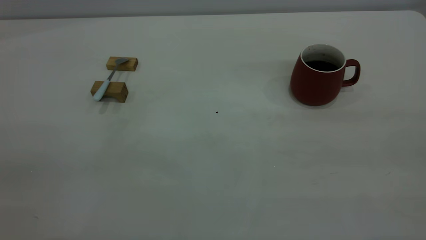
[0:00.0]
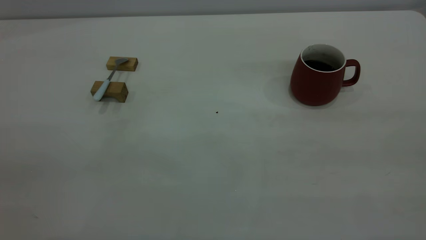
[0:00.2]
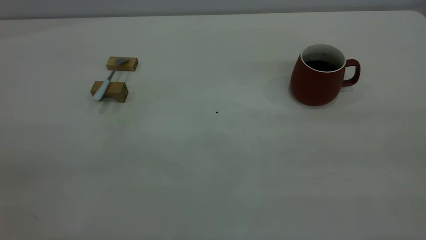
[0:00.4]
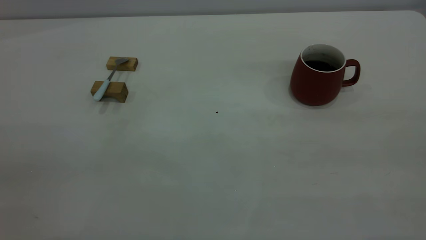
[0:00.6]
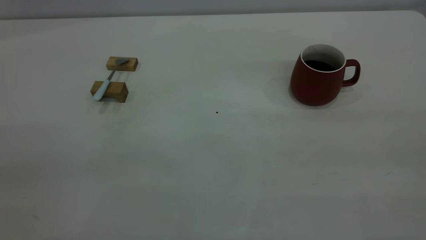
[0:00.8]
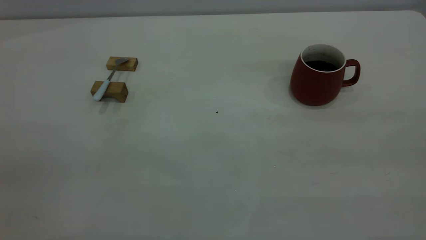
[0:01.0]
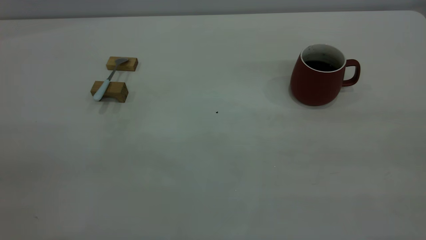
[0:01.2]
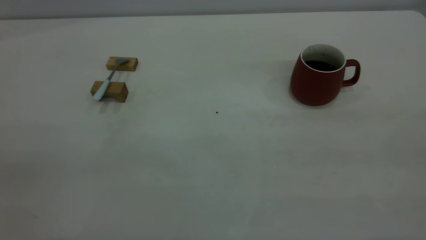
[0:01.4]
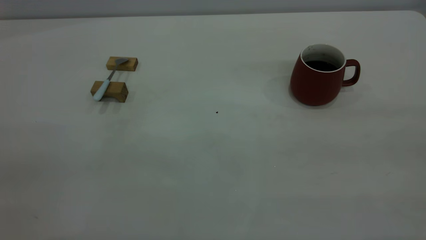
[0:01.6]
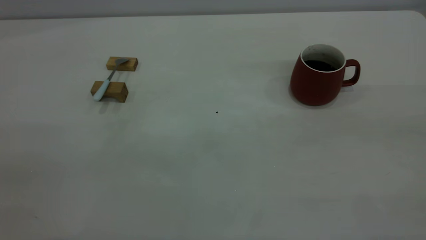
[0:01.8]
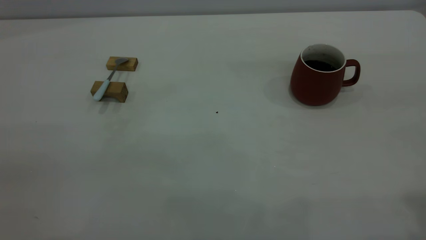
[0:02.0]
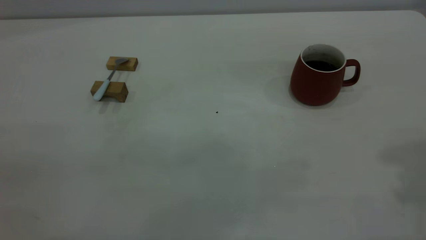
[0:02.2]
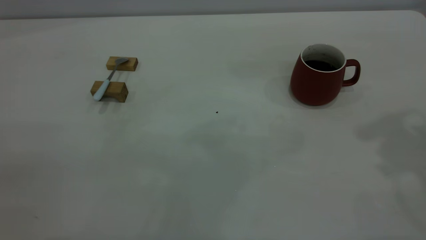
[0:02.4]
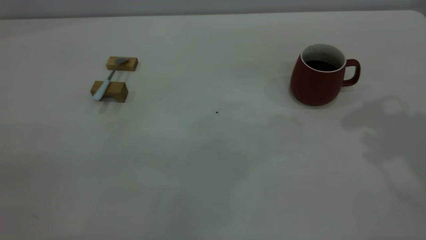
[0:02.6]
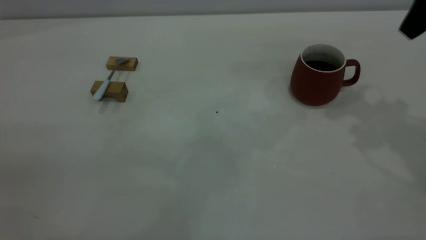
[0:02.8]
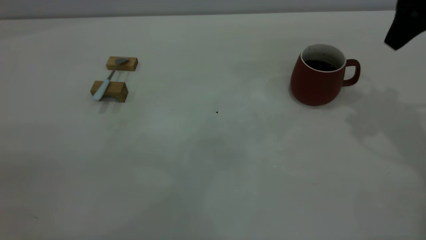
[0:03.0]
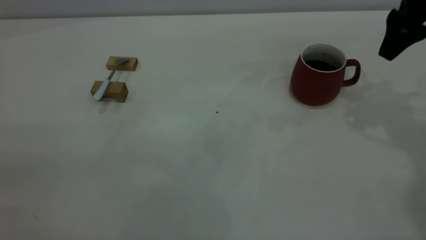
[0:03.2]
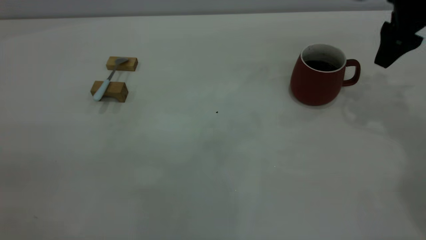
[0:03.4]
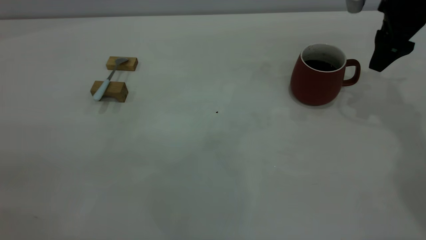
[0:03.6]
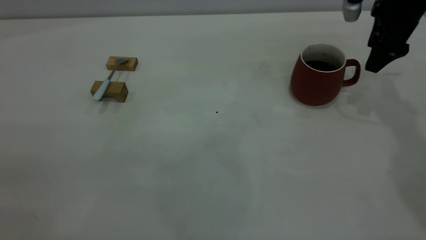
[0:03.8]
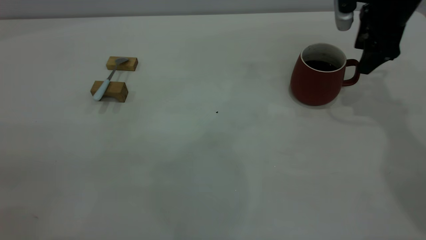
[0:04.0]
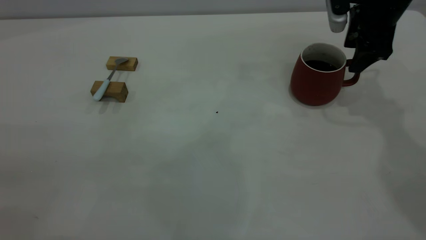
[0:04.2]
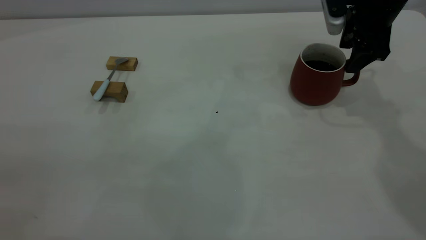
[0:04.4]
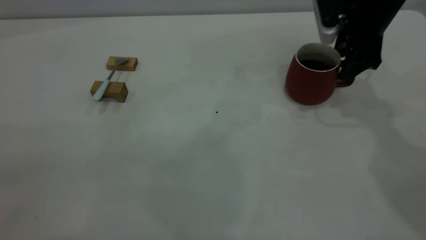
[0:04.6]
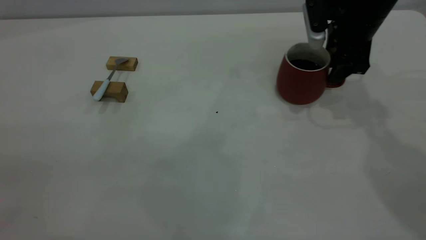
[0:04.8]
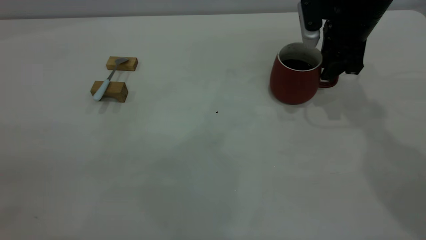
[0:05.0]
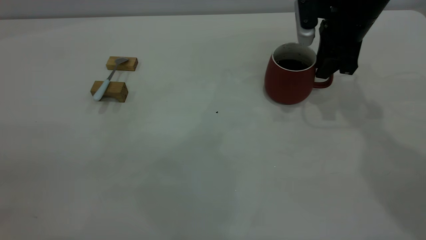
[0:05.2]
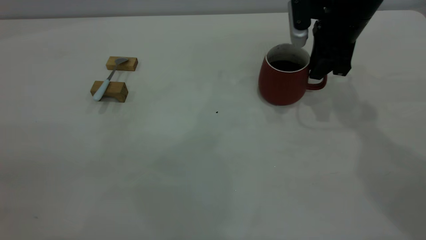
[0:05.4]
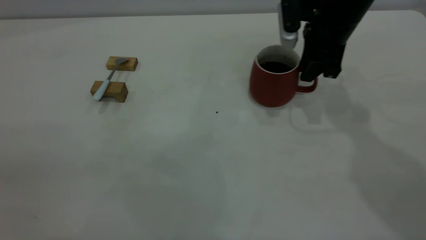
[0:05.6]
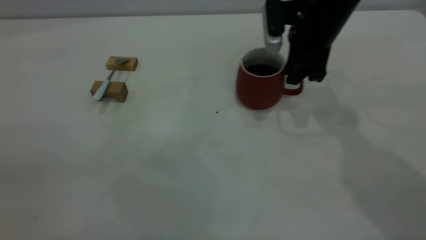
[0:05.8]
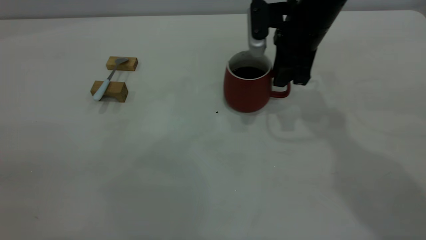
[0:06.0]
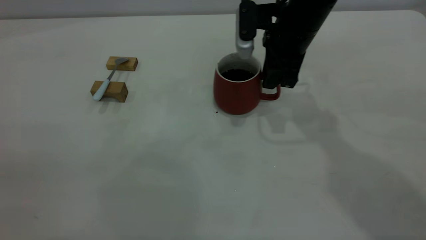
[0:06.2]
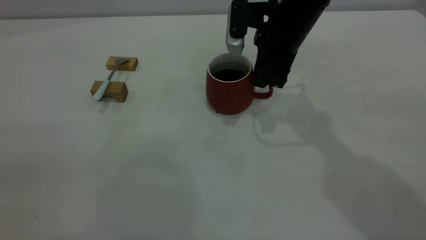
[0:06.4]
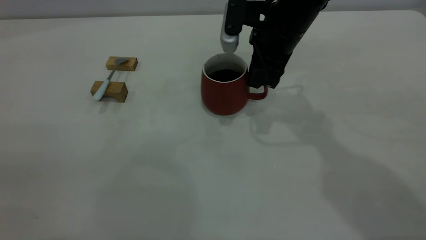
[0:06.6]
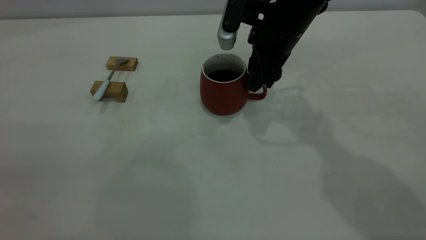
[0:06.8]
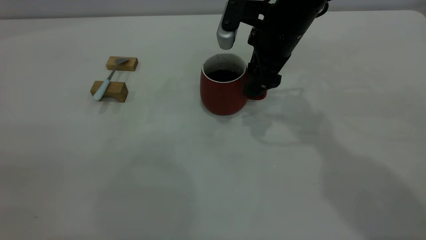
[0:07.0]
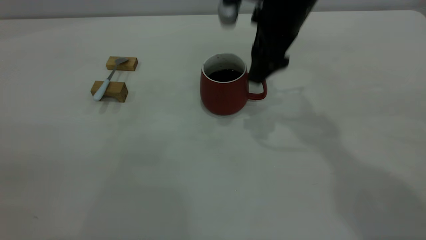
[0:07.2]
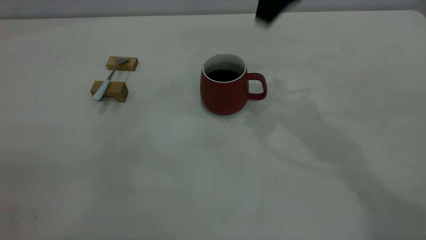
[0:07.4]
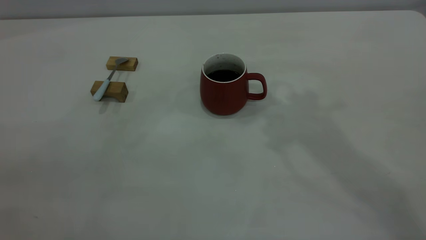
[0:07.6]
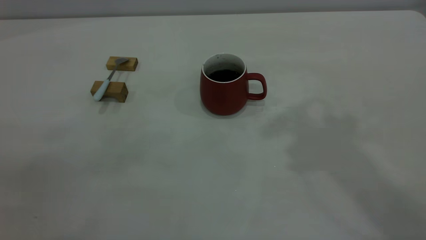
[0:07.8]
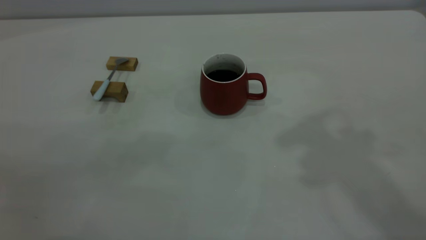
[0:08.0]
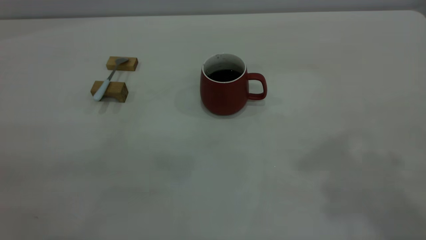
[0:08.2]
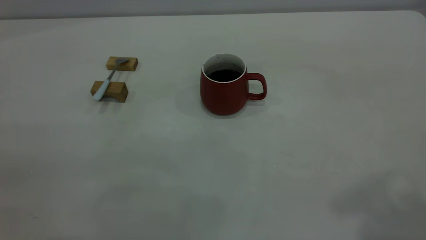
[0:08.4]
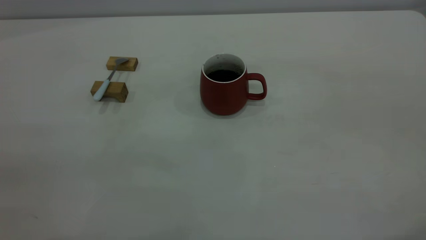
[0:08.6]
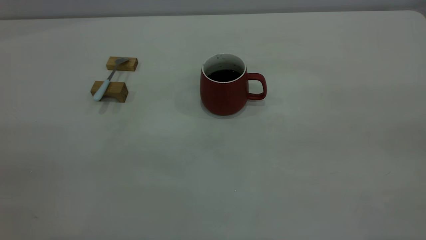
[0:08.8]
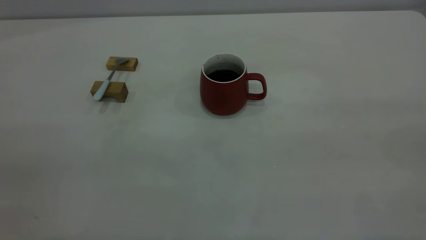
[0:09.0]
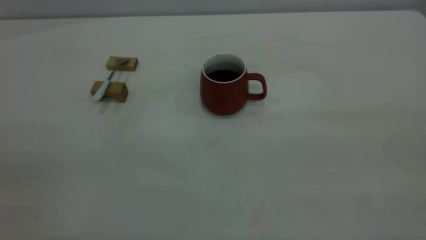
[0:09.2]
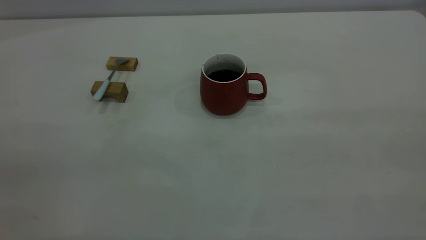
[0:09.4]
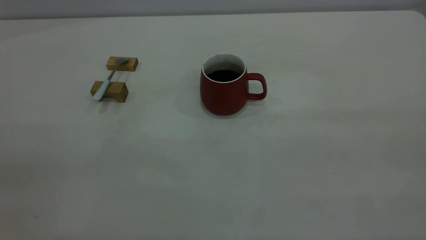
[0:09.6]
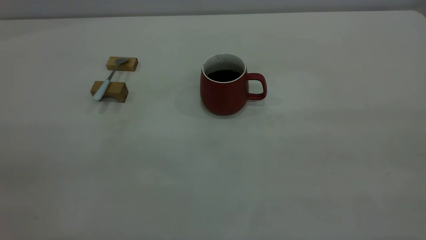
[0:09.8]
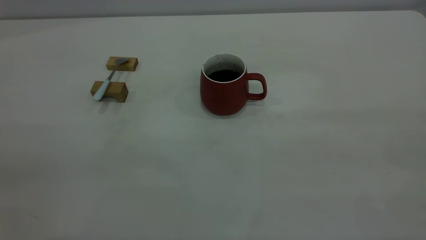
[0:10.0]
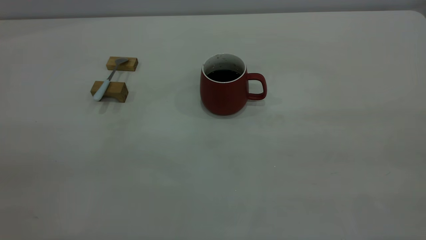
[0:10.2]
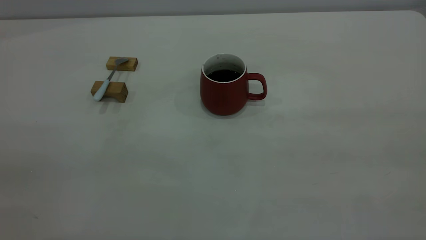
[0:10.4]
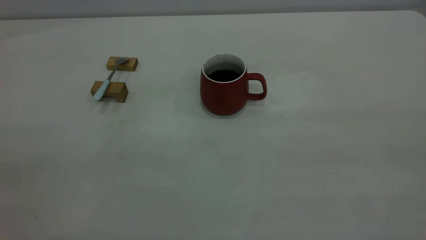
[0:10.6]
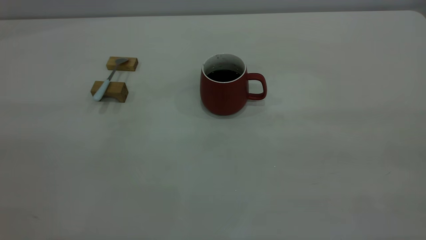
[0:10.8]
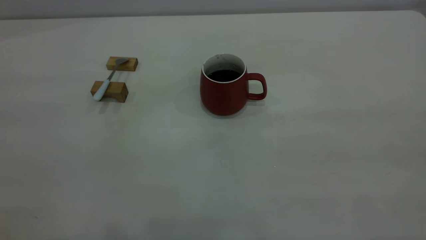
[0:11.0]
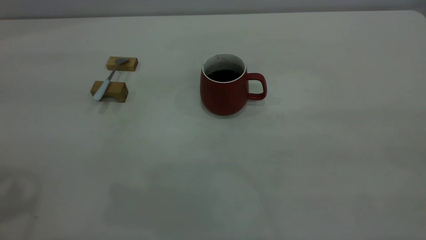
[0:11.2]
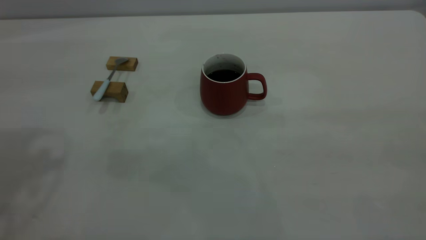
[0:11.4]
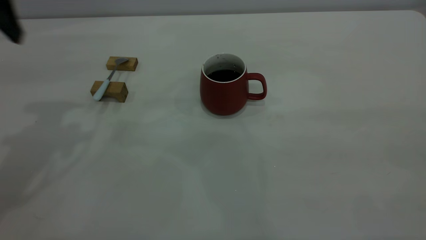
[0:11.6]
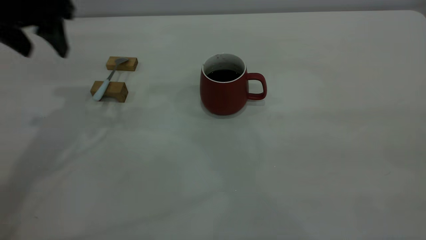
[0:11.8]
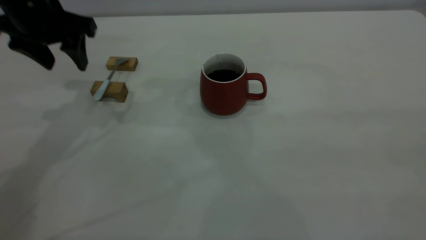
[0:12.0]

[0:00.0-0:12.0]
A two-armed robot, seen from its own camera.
Step, 0:00.0 to 0:07.2: Move the cup with coffee to the center of view.
0:01.6 to 0:03.0: The right gripper heads forward, covering roughly 35 cm.
0:03.0 to 0:04.4: The right gripper heads downward and forward, covering some 10 cm.
0:04.4 to 0:06.0: The right gripper moves to the left, some 10 cm, and closes up.
0:06.0 to 0:07.6: The right gripper goes about 25 cm upward, and opens its fingers.
0:10.4 to 0:12.0: The left gripper travels forward and downward by roughly 40 cm.

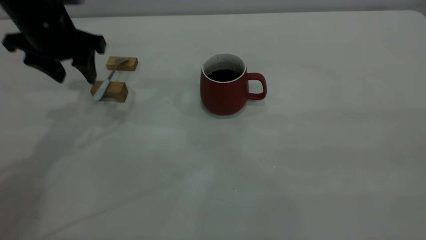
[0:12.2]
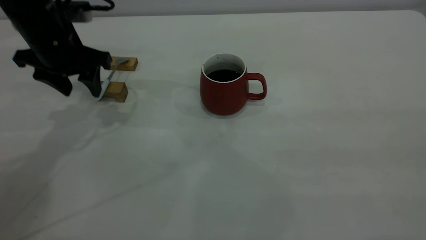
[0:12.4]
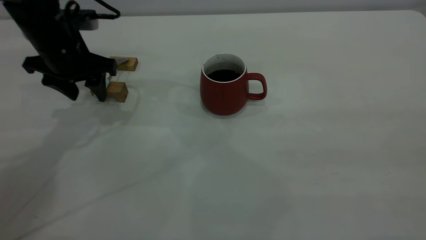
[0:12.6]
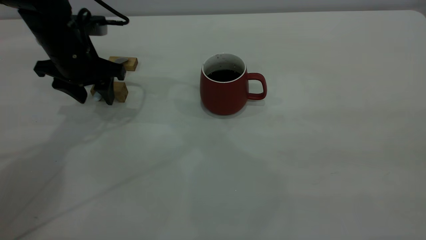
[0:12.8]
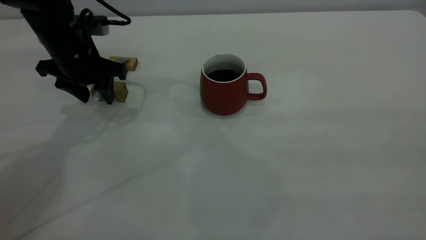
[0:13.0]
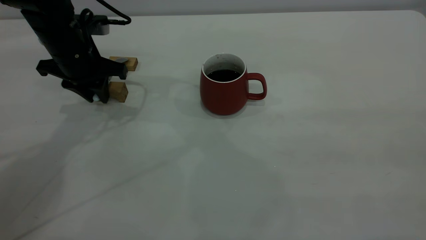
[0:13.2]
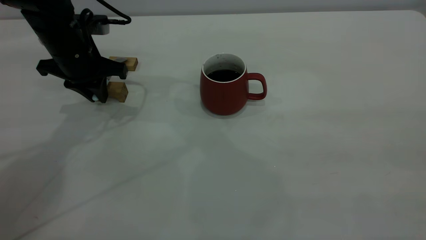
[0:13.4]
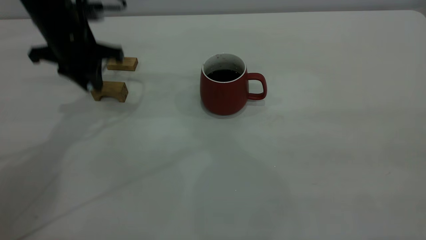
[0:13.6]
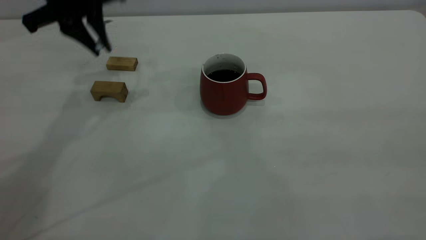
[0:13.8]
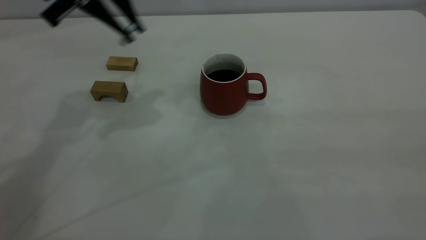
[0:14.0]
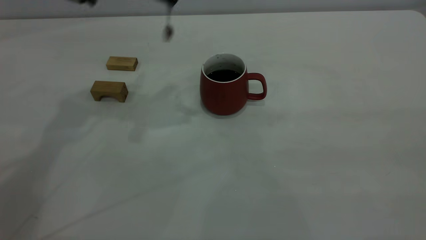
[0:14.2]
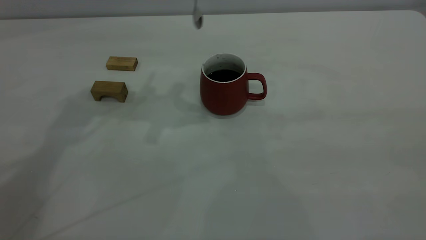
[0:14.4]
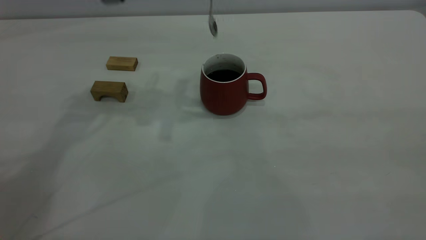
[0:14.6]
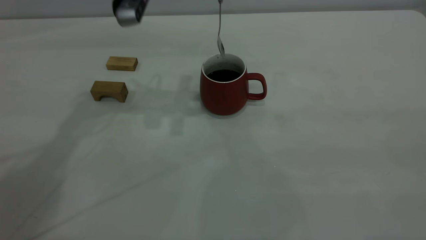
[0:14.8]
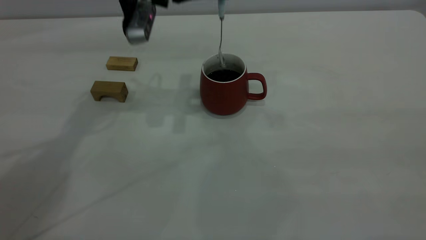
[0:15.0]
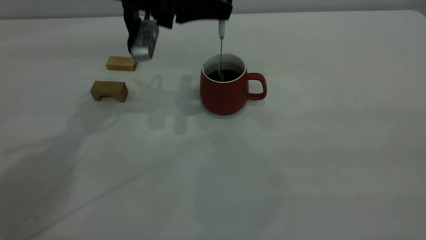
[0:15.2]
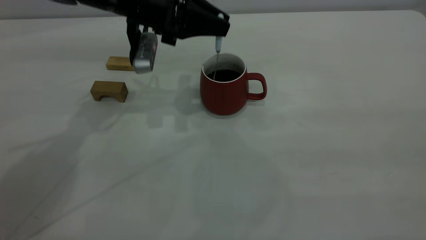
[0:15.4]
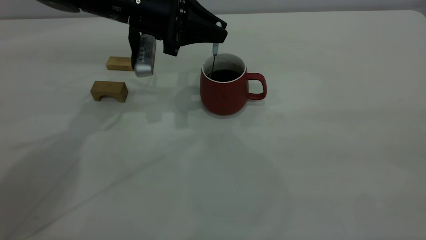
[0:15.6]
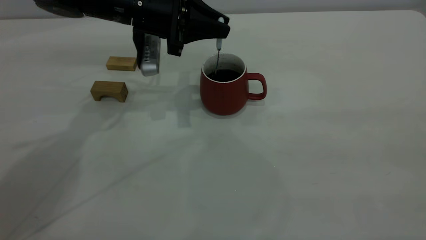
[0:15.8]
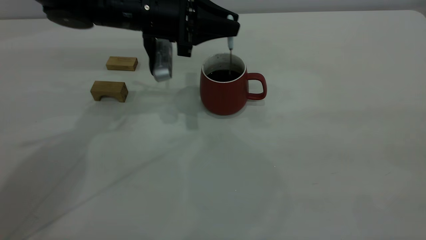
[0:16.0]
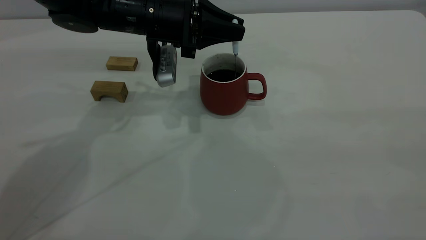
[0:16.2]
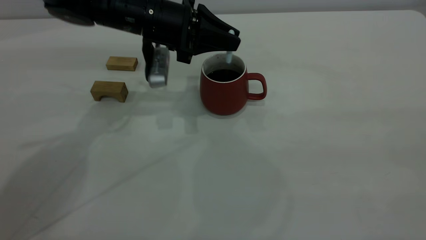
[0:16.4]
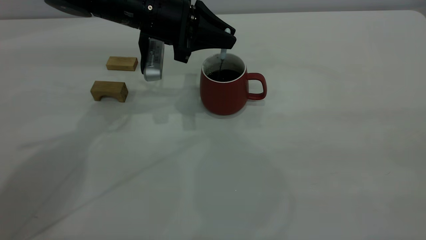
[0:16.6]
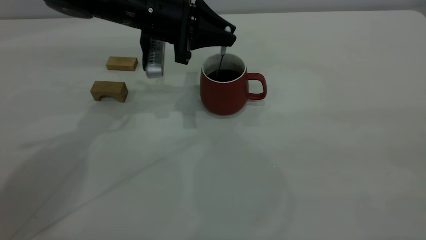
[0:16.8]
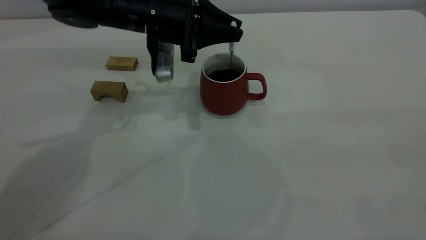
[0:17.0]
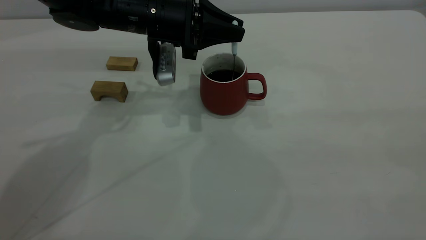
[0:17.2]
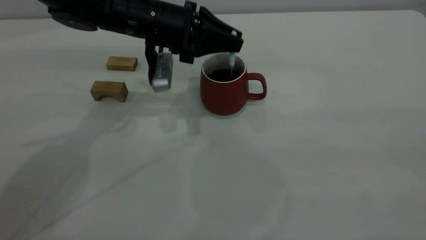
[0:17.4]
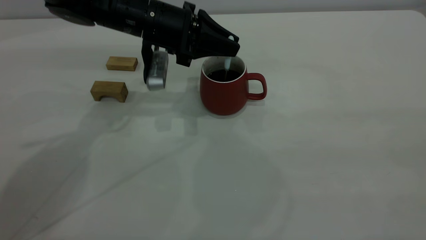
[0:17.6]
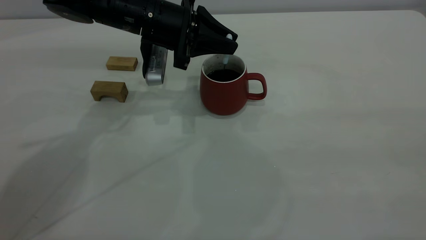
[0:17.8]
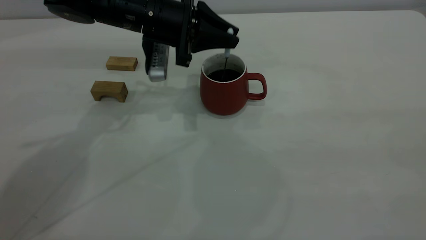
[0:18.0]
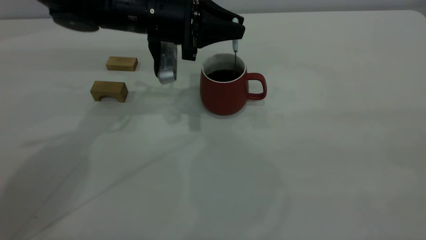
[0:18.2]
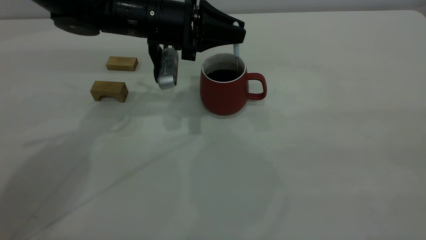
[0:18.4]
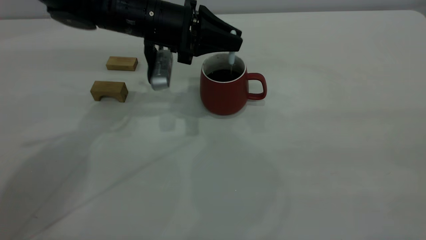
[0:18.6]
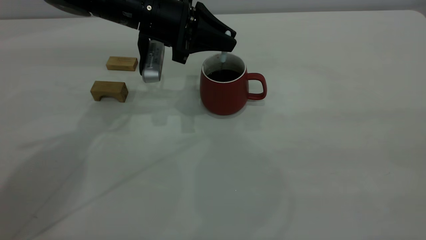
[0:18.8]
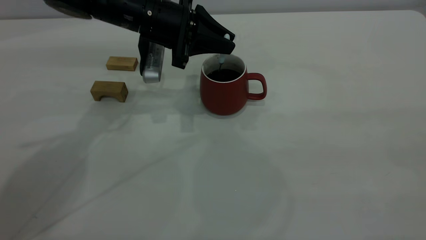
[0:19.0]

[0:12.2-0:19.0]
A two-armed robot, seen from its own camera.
0:12.2 to 0:13.6: The left gripper closes up.
0:13.6 to 0:15.0: The left gripper shifts approximately 10 cm to the right, and reaches some 15 cm upward, then returns.
0:15.0 to 0:16.2: The left gripper goes roughly 5 cm downward.
0:16.2 to 0:19.0: The grippers make only small movements.
